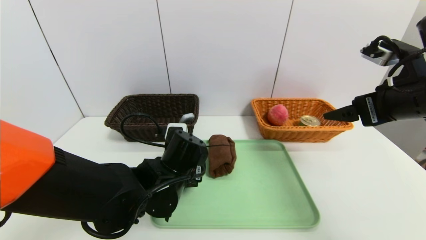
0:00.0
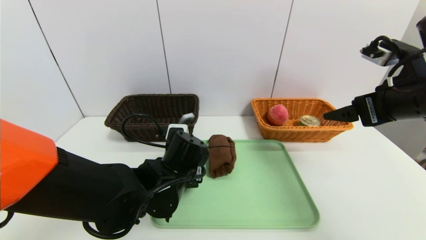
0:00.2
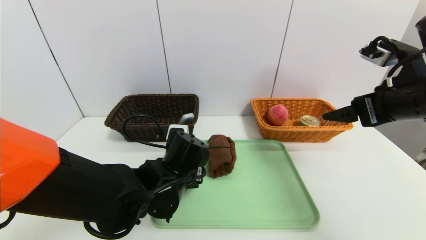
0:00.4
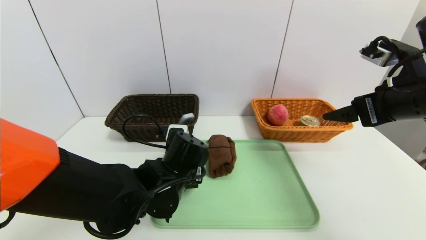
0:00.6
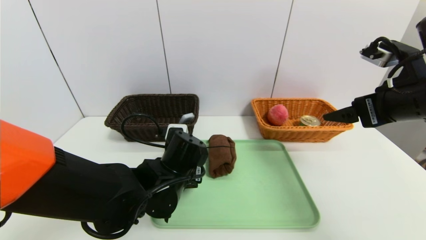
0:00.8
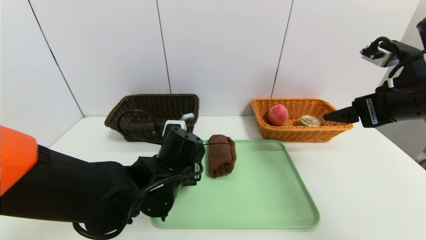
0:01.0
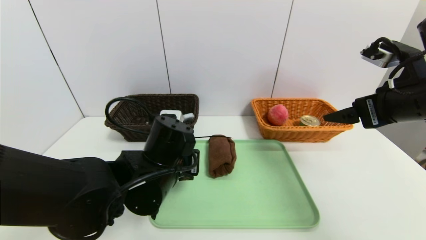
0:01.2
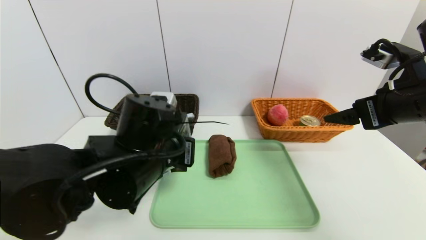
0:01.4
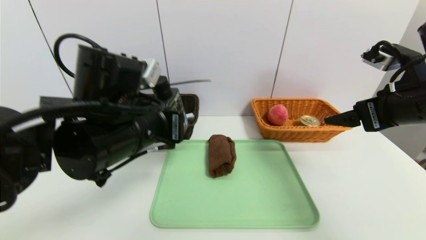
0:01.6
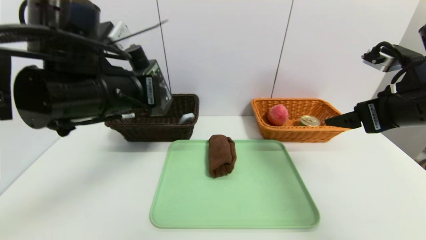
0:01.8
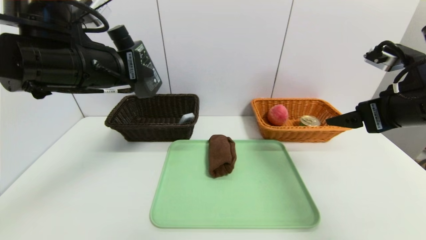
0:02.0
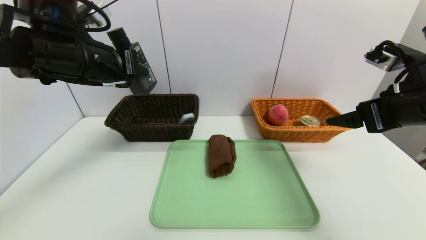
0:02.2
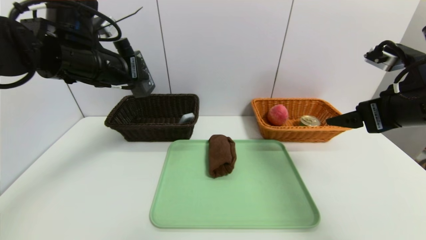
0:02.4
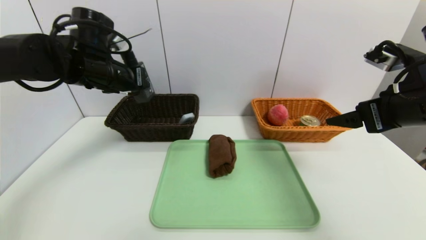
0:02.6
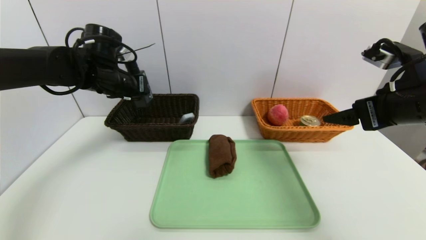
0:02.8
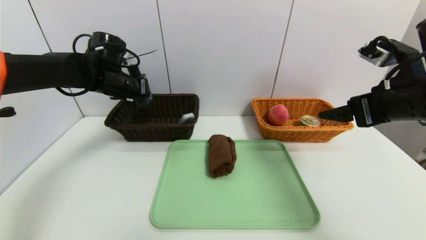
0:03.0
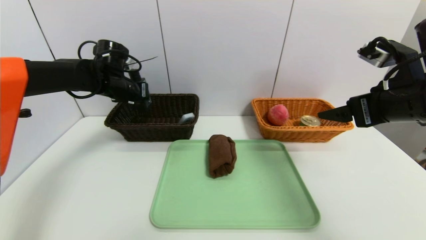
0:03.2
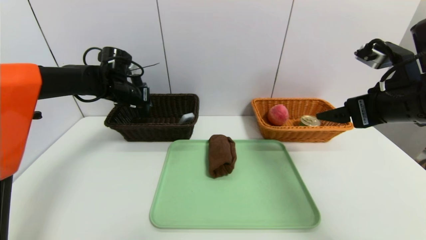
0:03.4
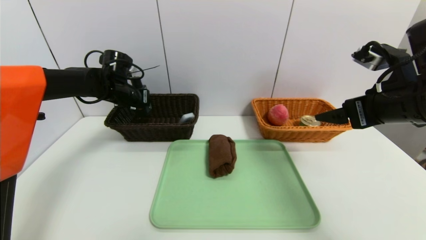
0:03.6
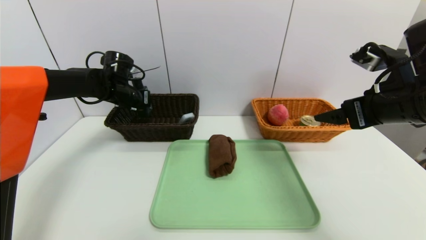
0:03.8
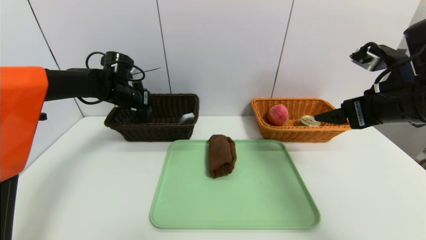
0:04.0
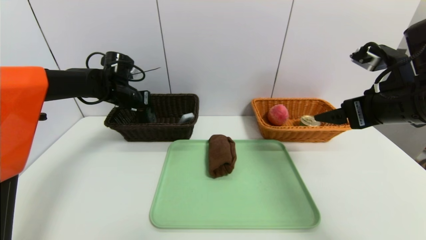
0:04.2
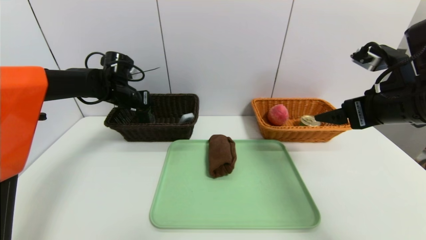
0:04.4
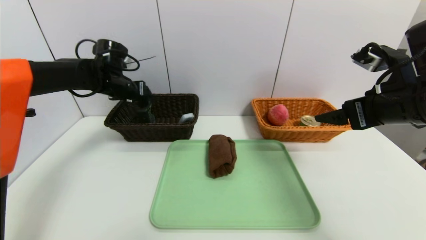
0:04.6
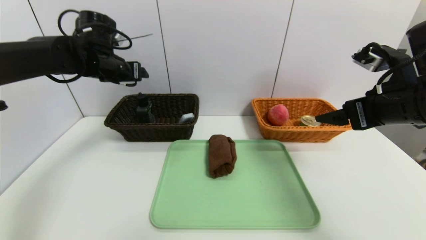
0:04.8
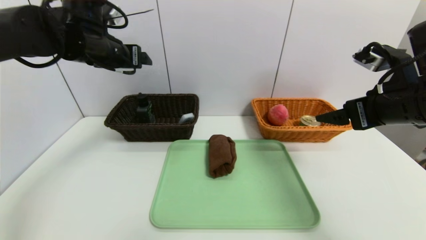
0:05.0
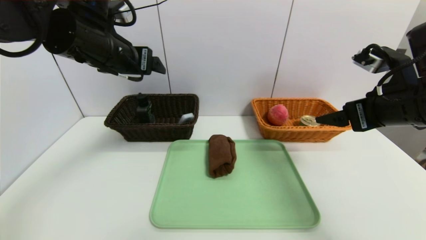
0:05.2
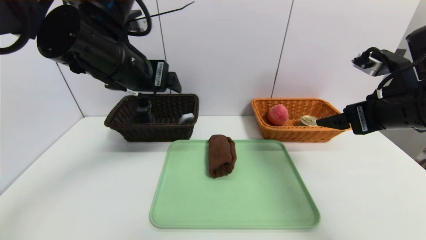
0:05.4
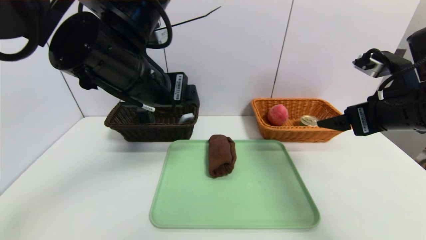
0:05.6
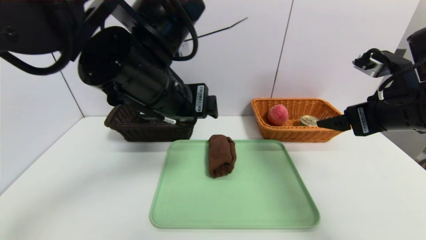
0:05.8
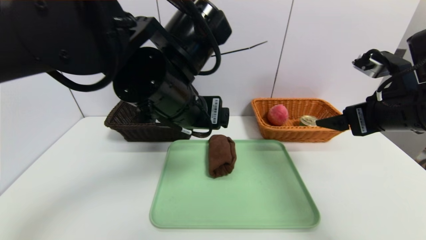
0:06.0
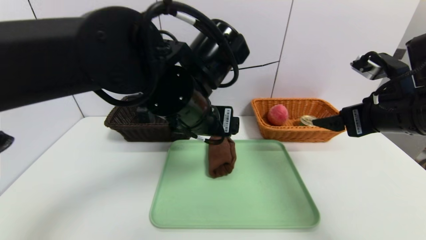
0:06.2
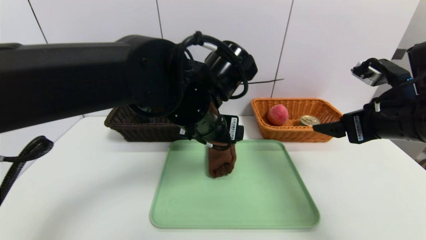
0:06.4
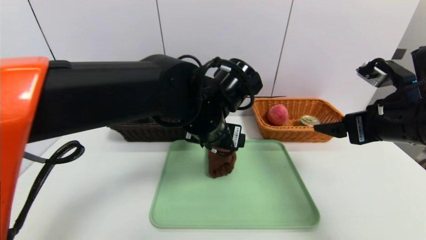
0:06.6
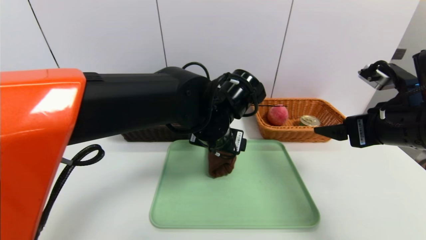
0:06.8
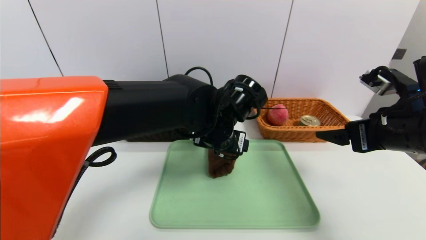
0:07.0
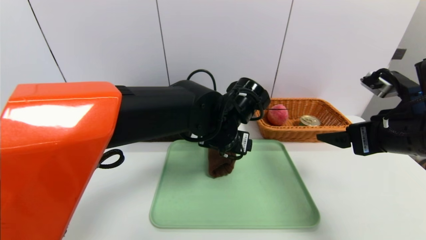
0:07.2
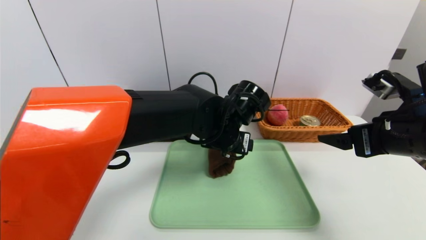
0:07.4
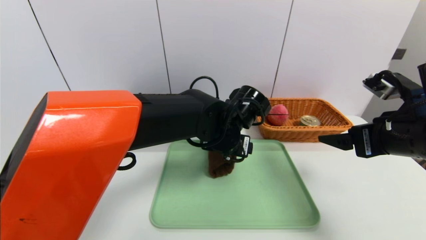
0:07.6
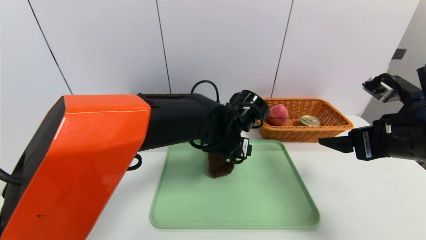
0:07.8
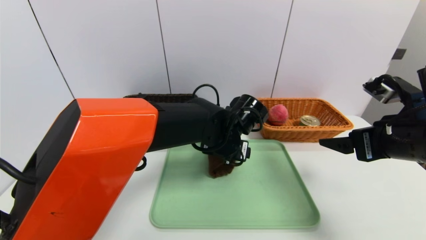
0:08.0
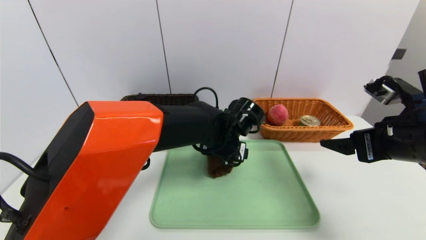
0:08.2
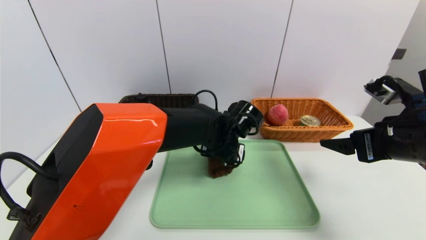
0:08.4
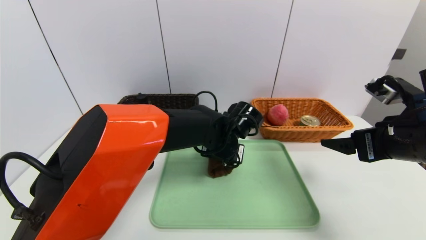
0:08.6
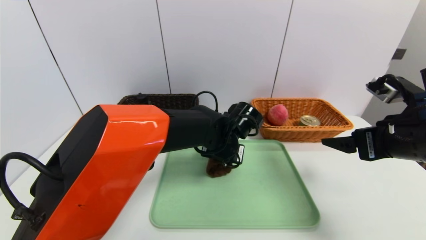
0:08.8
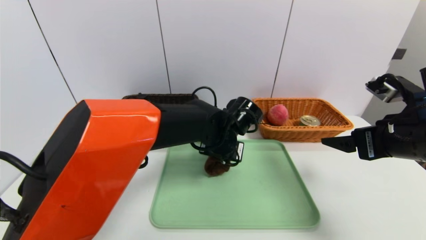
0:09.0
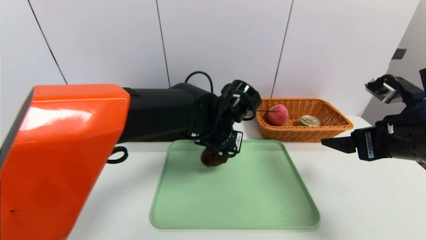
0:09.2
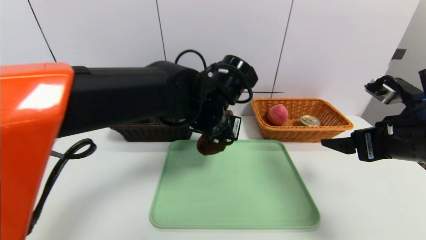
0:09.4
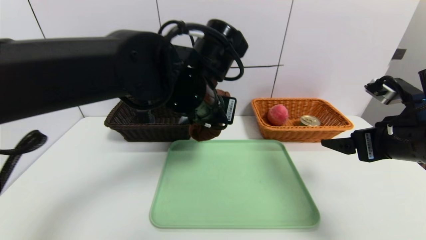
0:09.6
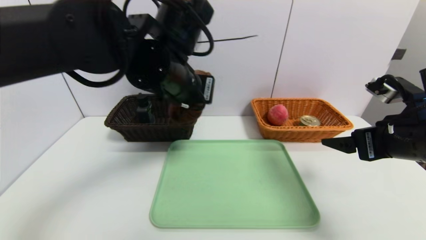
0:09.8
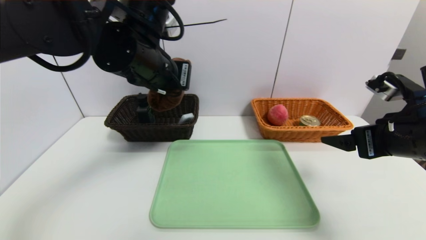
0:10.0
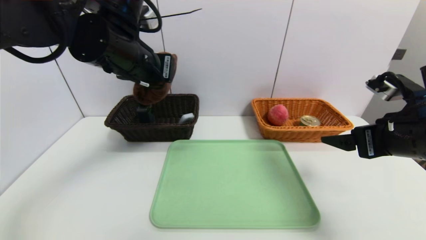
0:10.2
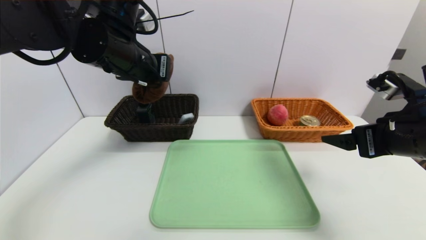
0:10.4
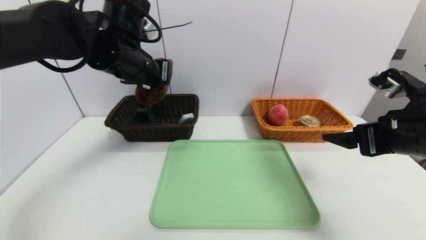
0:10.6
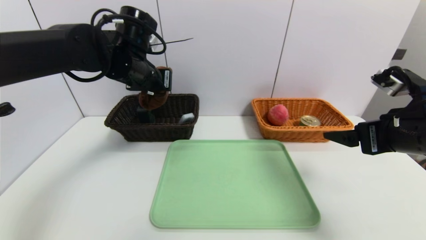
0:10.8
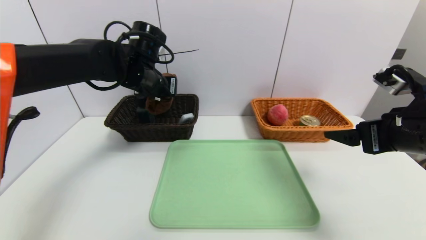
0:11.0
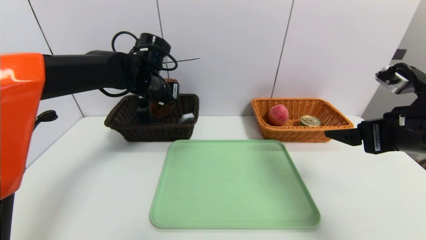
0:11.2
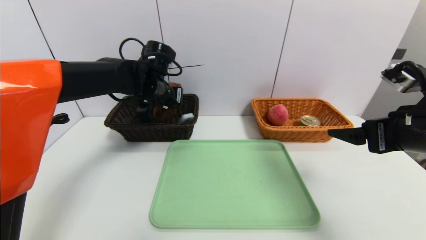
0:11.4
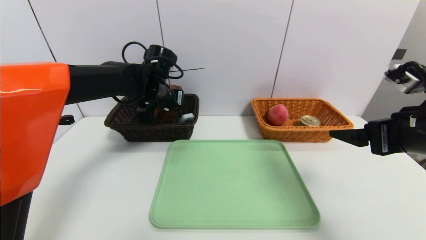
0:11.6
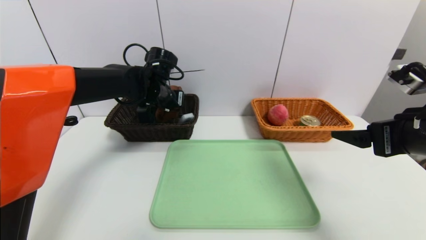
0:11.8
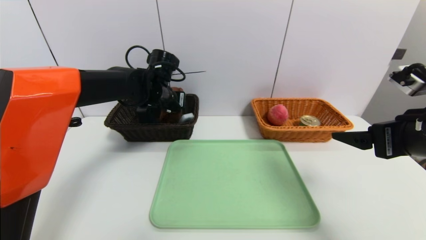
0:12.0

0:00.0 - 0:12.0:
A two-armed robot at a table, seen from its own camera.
Task of the whole recording: place the food in the right basket with the right gripper, and place the non food items in the left basket with the left gripper.
Step, 0:00.0 - 0:04.4: Grasp the hard cleanser and put it in the left basket.
0:00.0 - 0:01.6: The left gripper goes some 15 cm upward, and closes.
0:01.6 - 0:03.0: The left gripper goes roughly 25 cm forward and to the left.
0:03.0 - 0:04.4: The left gripper ends up about 5 cm from where it was, and opens its fingers.
0:04.4 - 0:06.0: The left gripper travels backward, to the right and upward by some 30 cm, and opens its fingers.
0:06.0 - 0:07.6: The left gripper moves downward, to the right and forward, some 15 cm.
0:07.6 - 0:09.0: The left gripper closes.
0:09.0 - 0:10.4: The left gripper heads upward and to the left, covering approximately 25 cm.
0:10.4 - 0:12.0: The left gripper is displaced downward and forward by some 15 cm, and opens up.

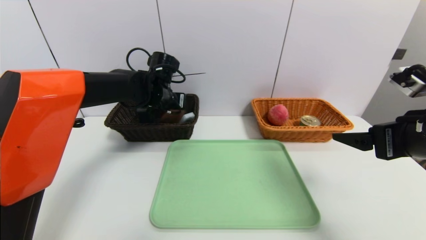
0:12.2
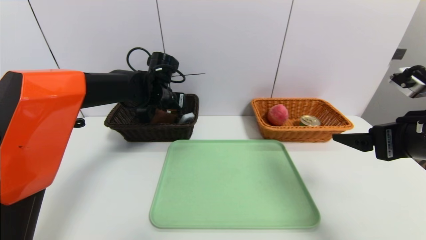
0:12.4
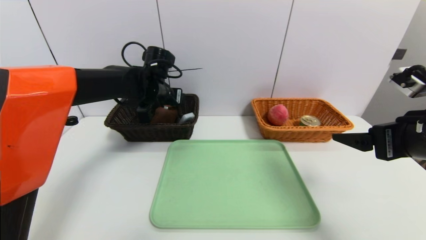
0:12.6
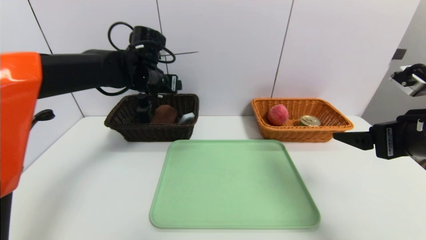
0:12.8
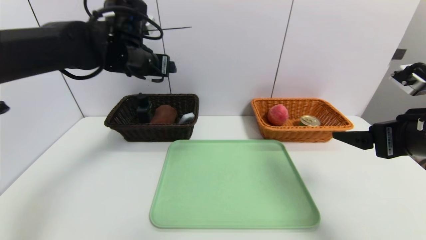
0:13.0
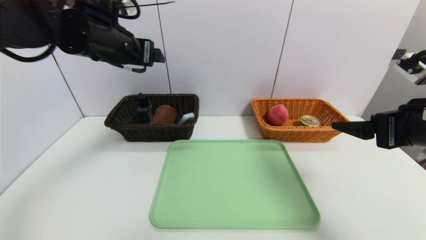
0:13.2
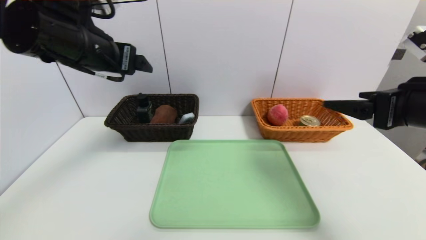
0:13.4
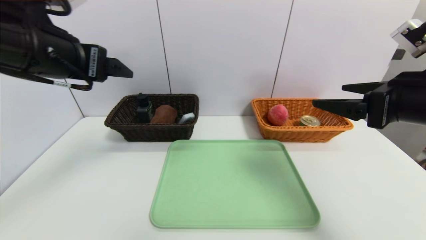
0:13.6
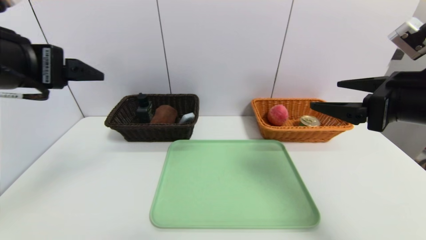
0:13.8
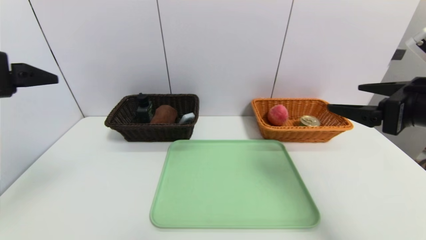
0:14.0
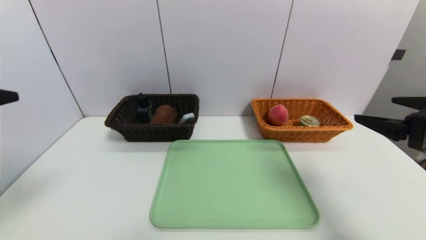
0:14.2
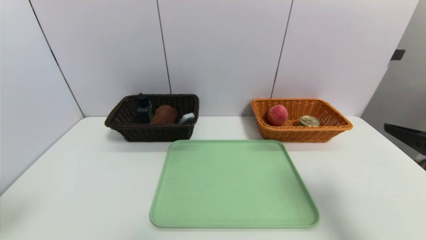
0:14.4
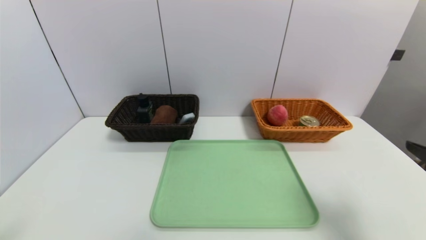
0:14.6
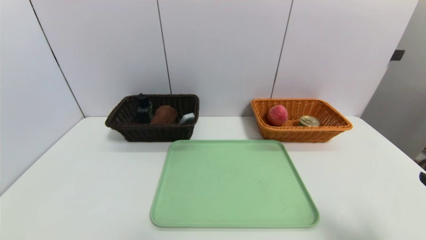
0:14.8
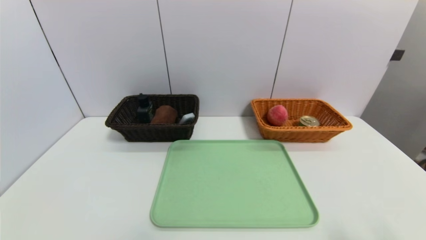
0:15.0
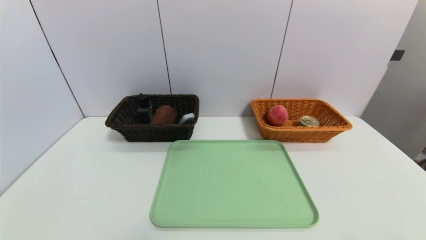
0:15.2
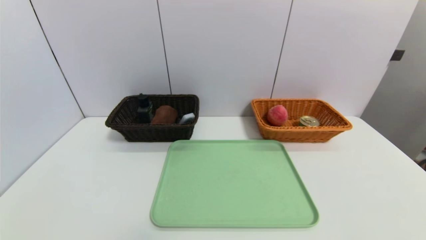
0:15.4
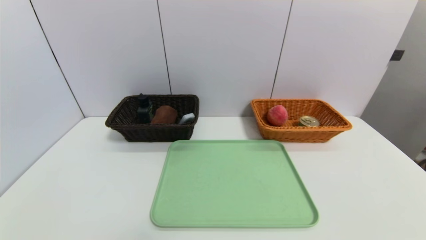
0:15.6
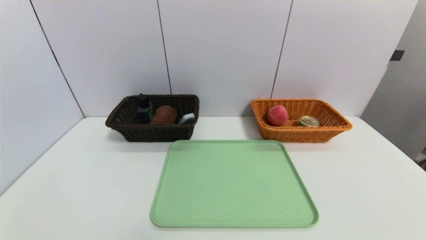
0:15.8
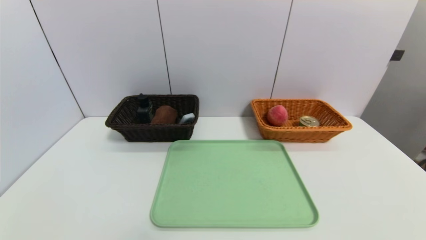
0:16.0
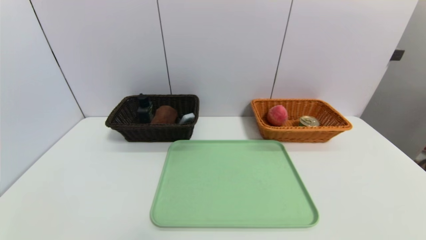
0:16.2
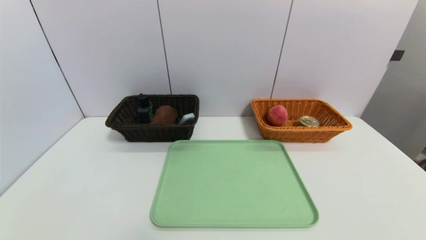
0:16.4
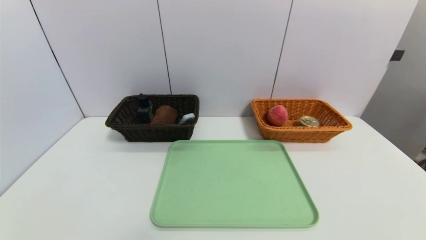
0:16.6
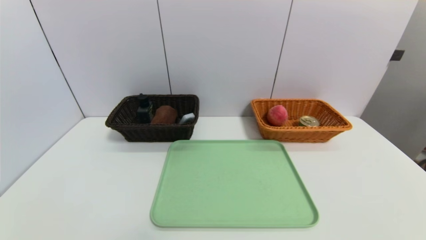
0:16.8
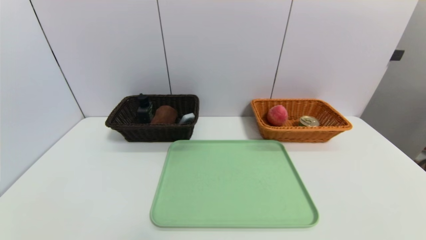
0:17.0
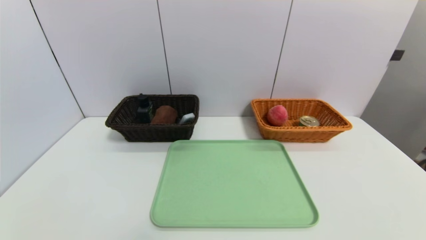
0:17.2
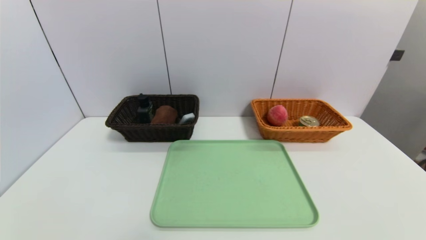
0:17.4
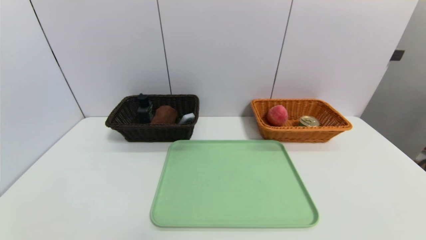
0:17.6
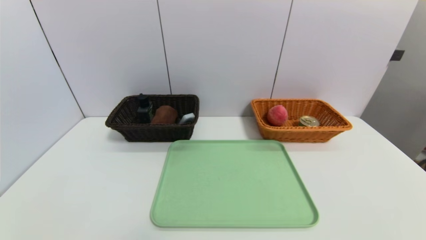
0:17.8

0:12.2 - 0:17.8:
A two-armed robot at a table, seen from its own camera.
Task of the whole recording: place the food in the right basket with the right gripper, and place the non food items in the left basket with the left gripper.
0:12.2 - 0:13.6: The left gripper moves backward, upward and to the left, roughly 25 cm, and opens.
0:13.6 - 0:15.0: The right gripper shifts about 20 cm backward and downward, while the left gripper travels backward and downward by about 30 cm.
